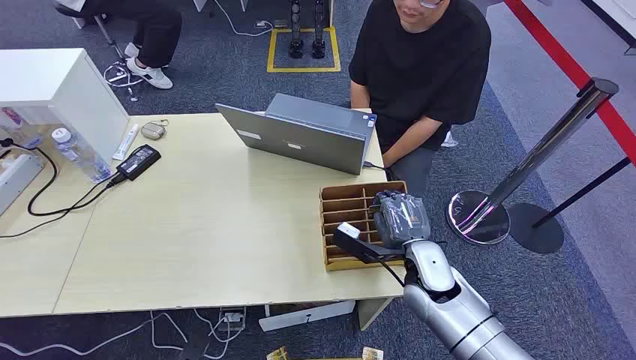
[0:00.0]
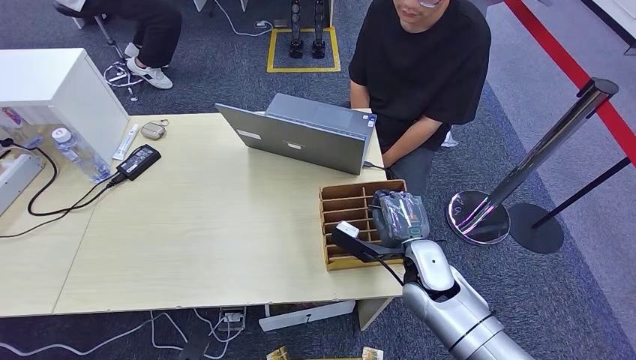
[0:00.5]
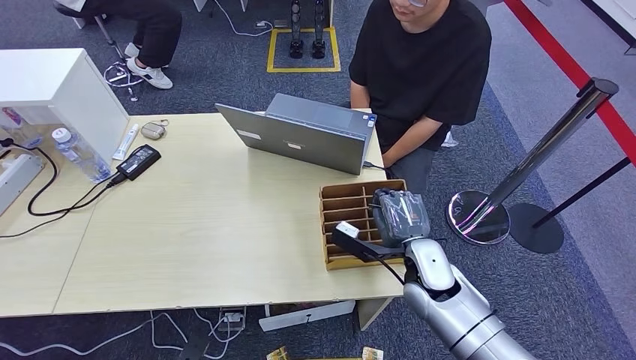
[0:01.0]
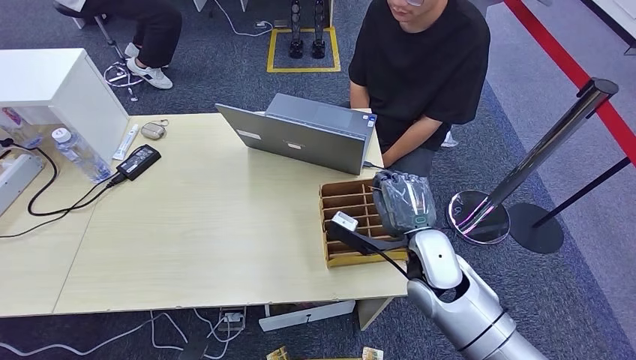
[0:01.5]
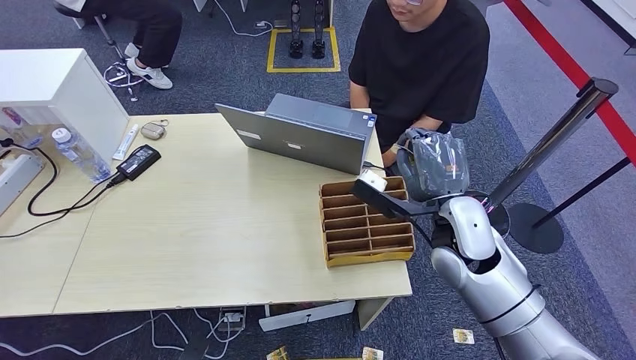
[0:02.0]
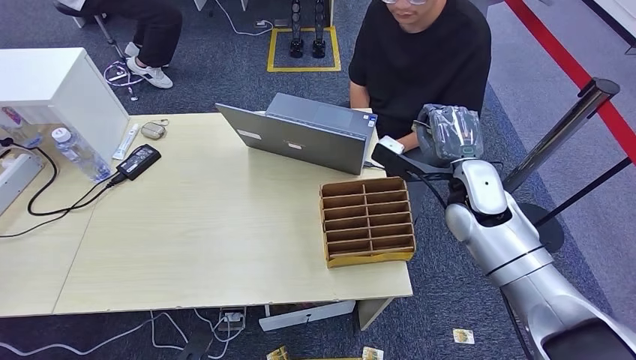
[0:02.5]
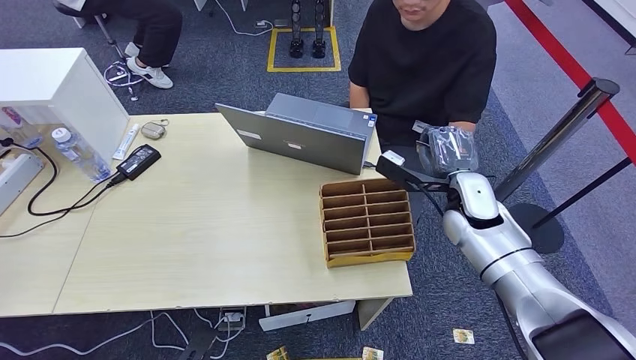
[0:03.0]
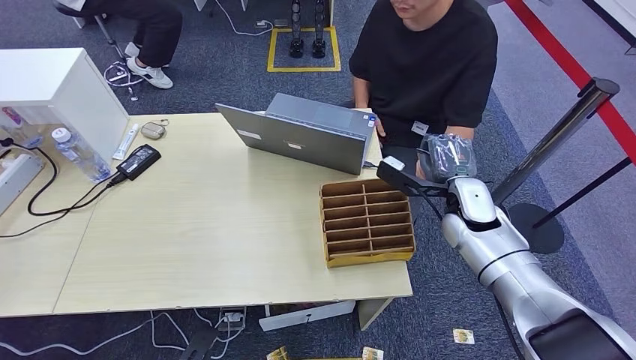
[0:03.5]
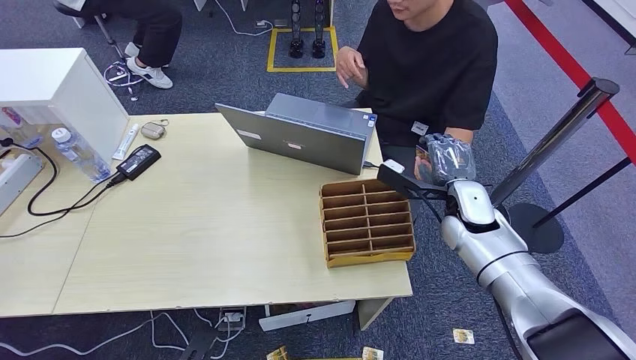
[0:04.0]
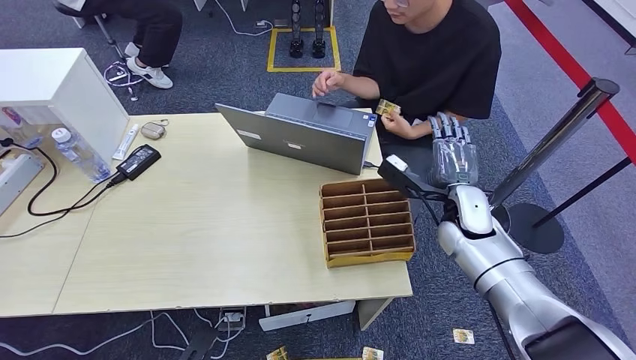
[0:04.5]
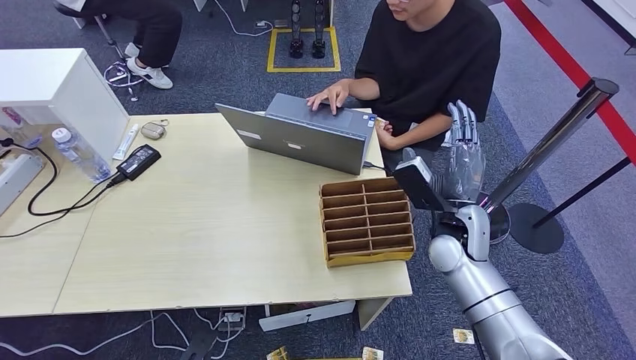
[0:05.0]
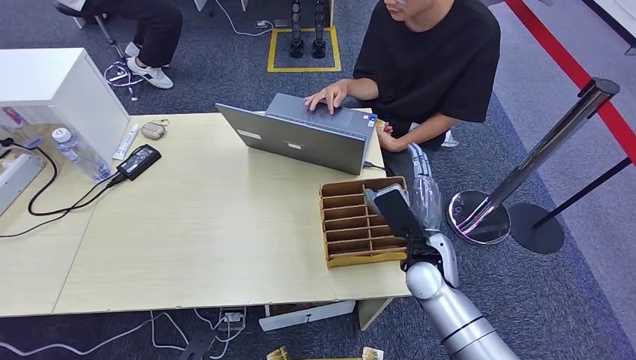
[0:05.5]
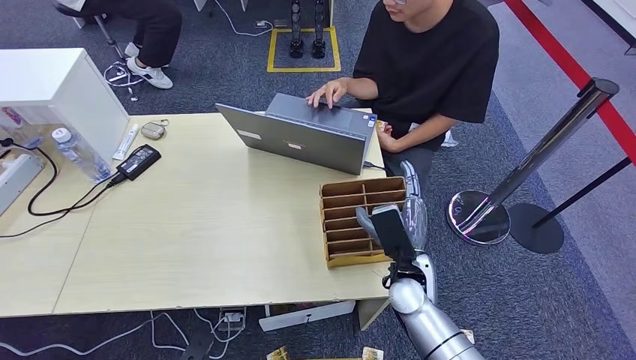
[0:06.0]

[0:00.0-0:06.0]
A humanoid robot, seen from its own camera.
Step, 0:00.0 to 0:02.0: Pick up the room card from the card holder.
Step, 0:02.5 to 0:06.0: Hand the room card to the target.
0:02.0 to 0:04.0: The right hand is displaced forward, to the right and downward by roughly 10 cm.
0:04.0 to 0:06.0: The right hand is displaced to the left, backward and downward by some 15 cm.

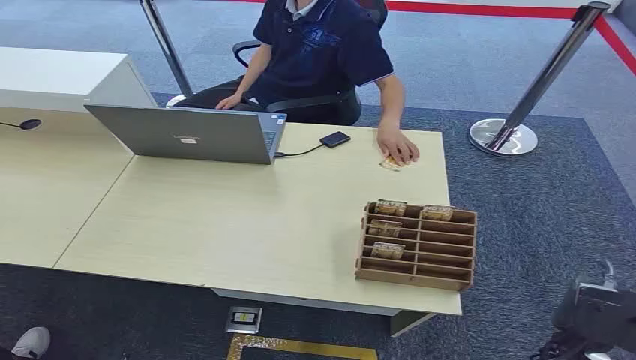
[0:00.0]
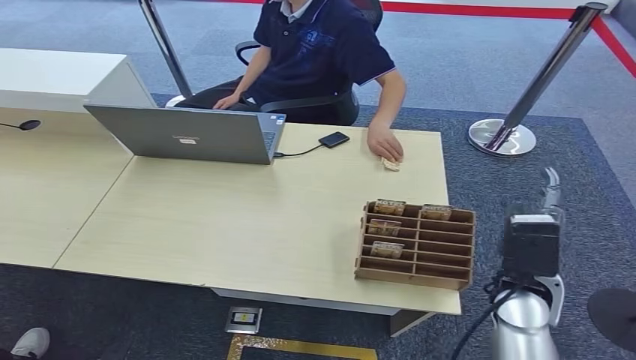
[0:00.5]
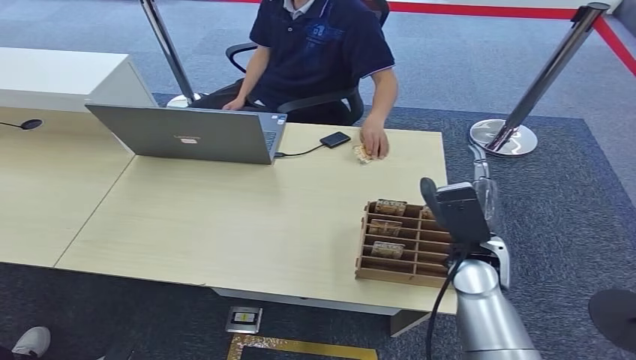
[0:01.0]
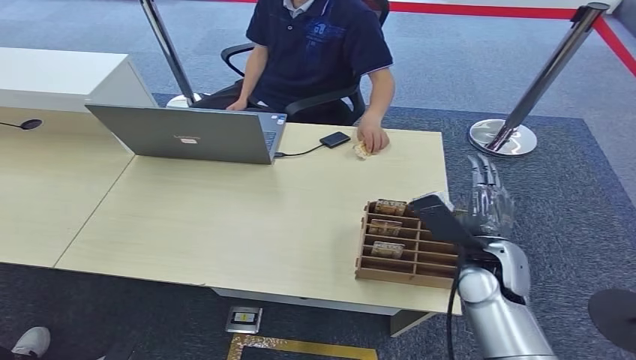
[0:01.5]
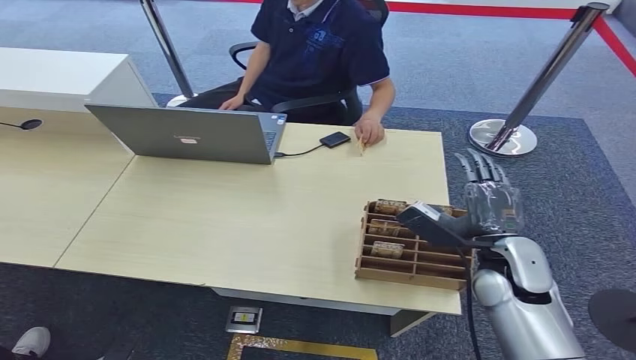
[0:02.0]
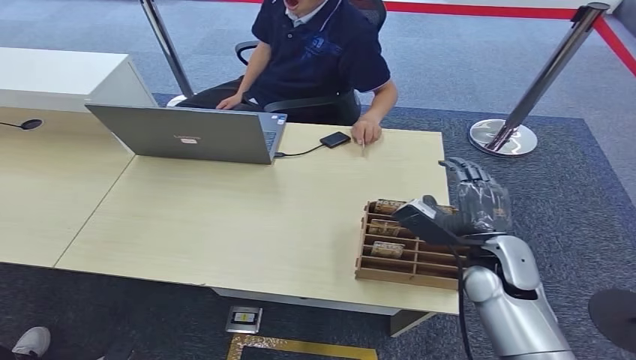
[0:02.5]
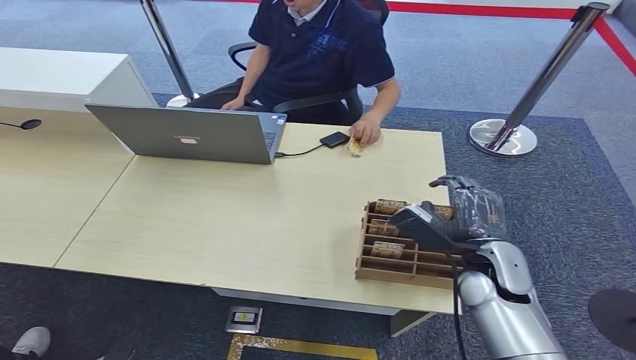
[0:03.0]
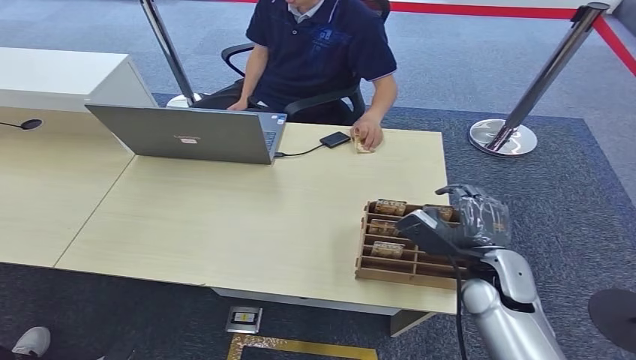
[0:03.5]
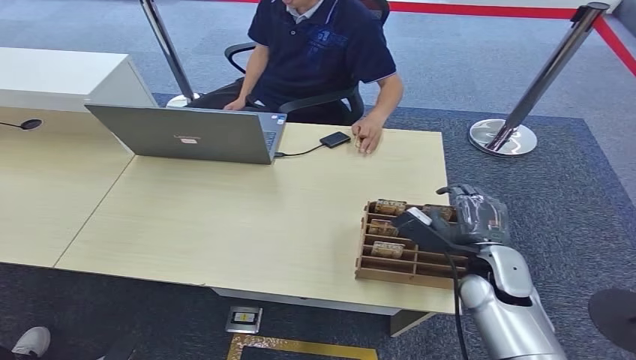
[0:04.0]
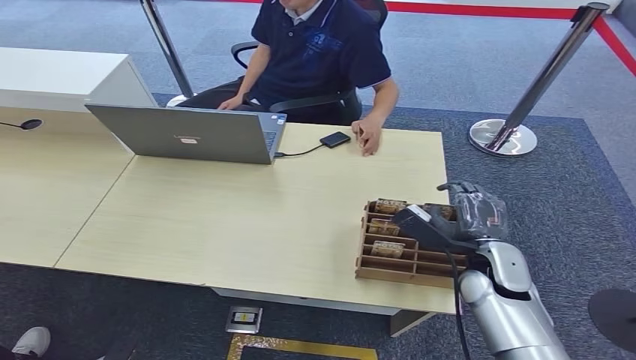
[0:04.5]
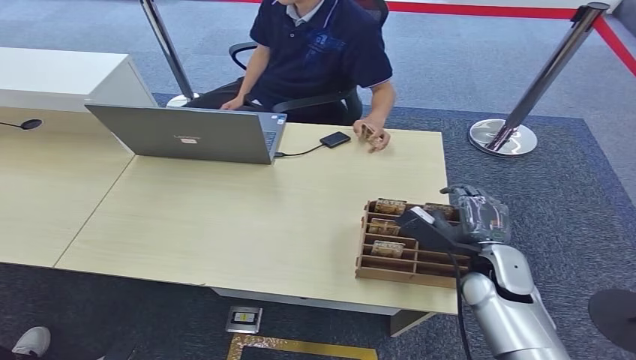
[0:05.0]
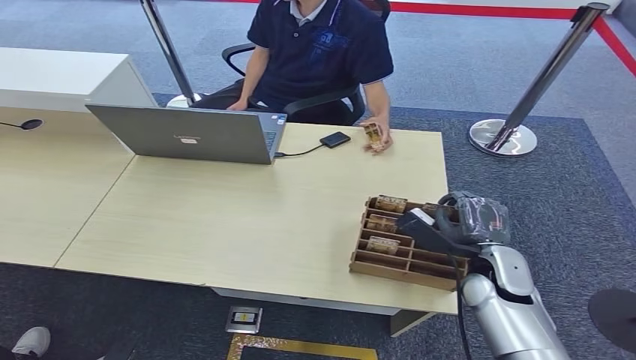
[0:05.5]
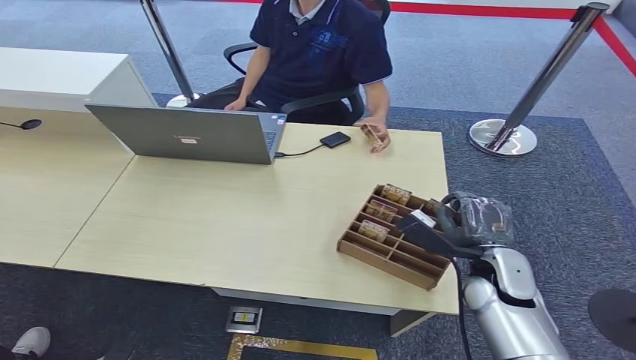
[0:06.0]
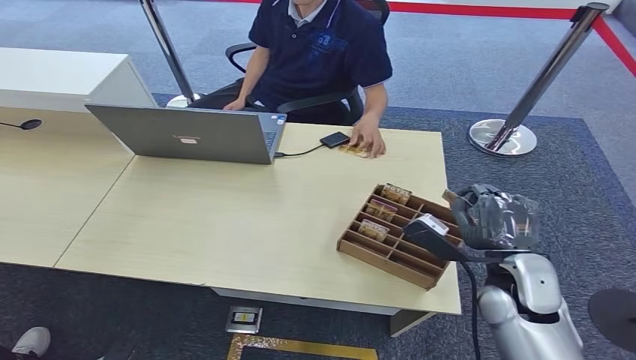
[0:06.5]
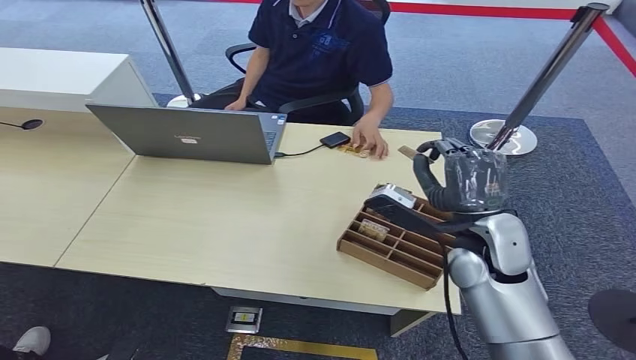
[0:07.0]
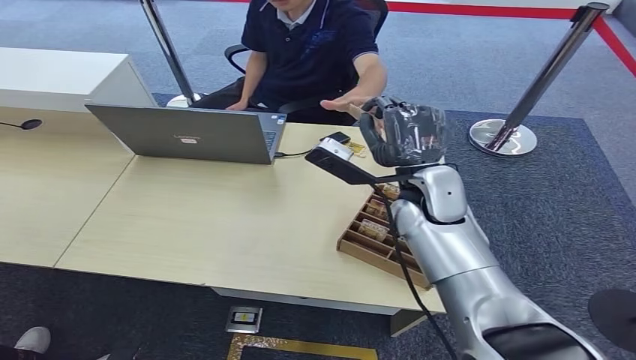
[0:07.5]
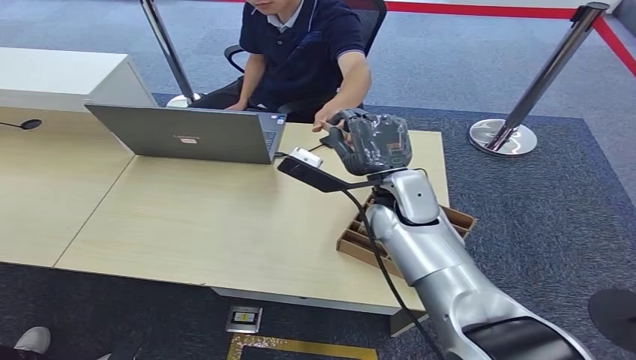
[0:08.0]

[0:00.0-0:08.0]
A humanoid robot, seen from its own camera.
Step, 0:00.0 to 0:06.5: Pick up the room card from the card holder.
Step, 0:07.5 to 0:08.0: Hand the room card to the target.
0:02.0 to 0:04.0: The hands make only small movements.
0:04.0 to 0:06.0: Both hands stay put.
0:06.0 to 0:08.0: The right hand goes about 20 cm to the left, upward and forward.
